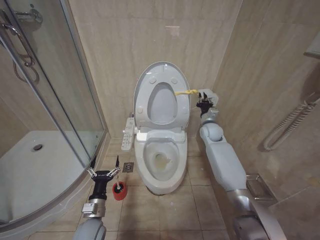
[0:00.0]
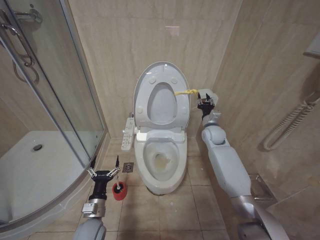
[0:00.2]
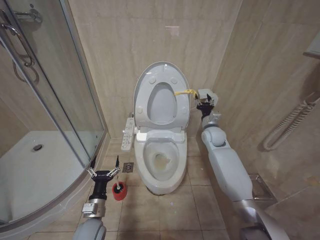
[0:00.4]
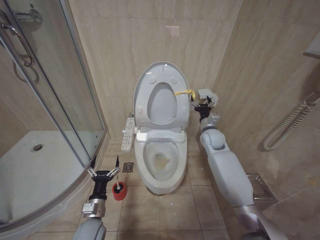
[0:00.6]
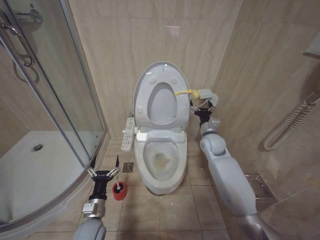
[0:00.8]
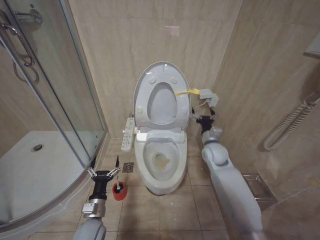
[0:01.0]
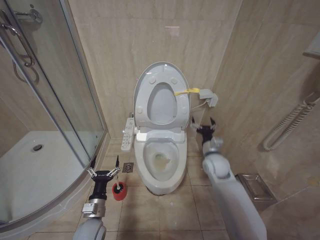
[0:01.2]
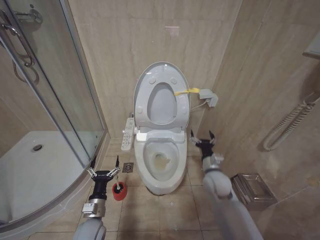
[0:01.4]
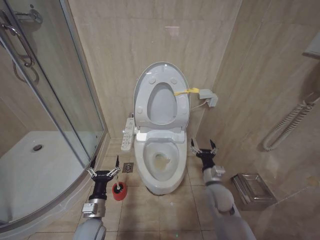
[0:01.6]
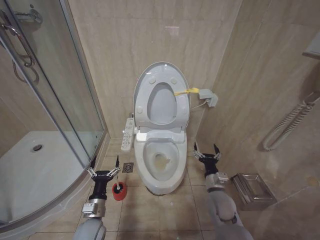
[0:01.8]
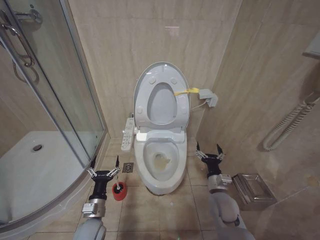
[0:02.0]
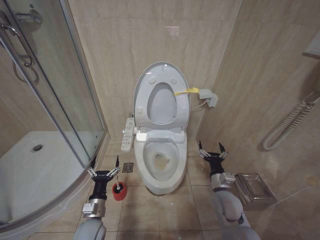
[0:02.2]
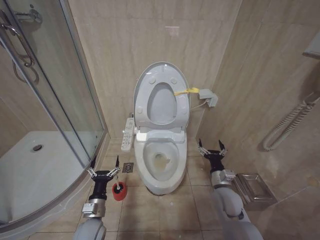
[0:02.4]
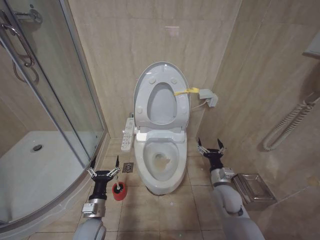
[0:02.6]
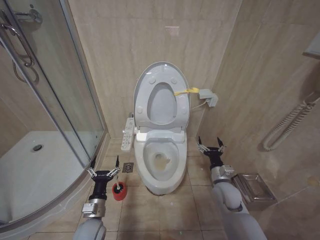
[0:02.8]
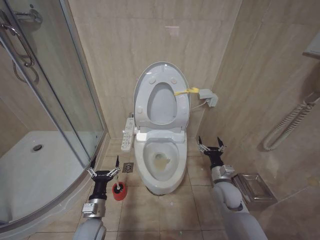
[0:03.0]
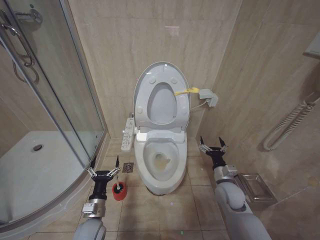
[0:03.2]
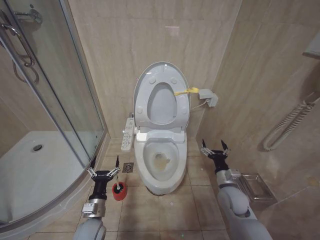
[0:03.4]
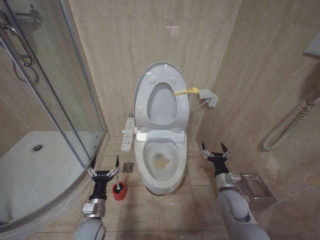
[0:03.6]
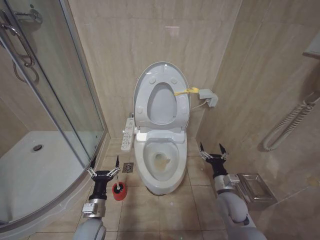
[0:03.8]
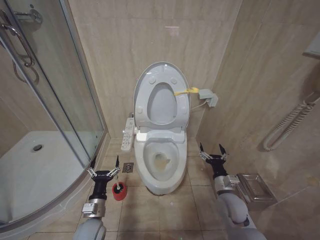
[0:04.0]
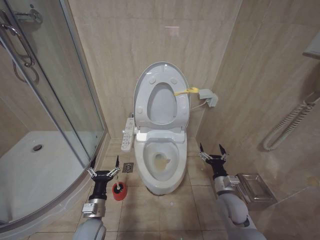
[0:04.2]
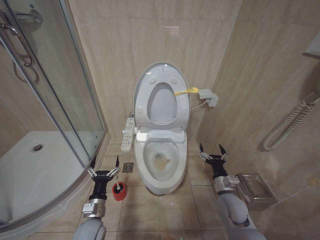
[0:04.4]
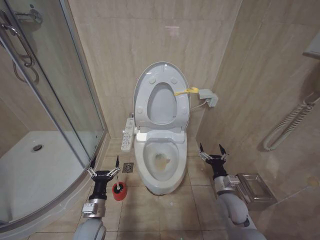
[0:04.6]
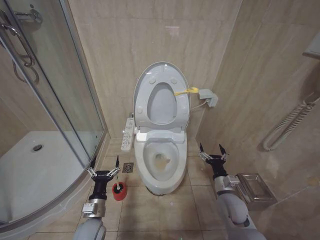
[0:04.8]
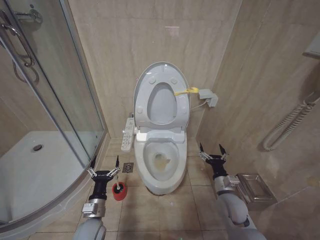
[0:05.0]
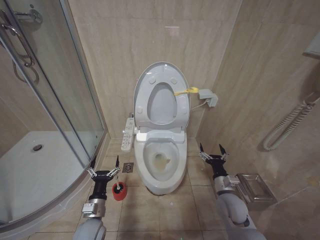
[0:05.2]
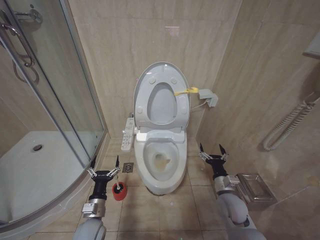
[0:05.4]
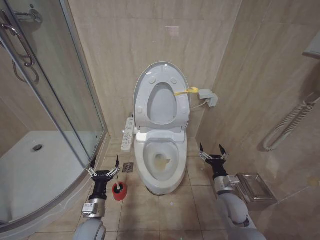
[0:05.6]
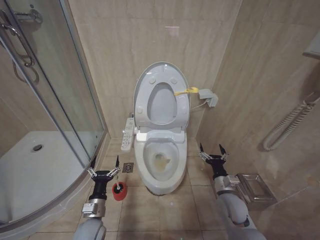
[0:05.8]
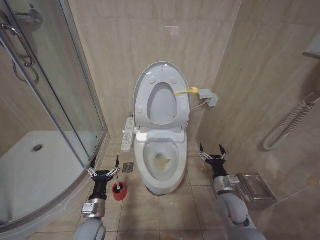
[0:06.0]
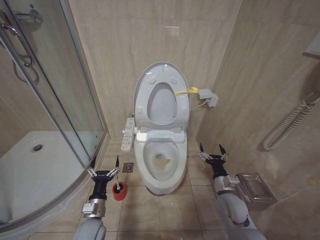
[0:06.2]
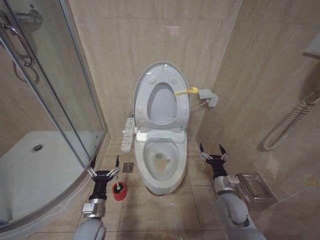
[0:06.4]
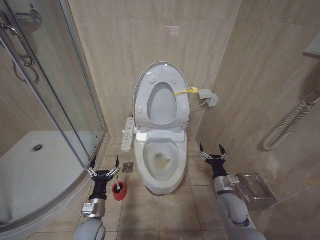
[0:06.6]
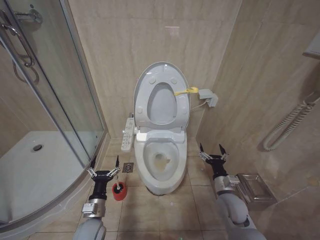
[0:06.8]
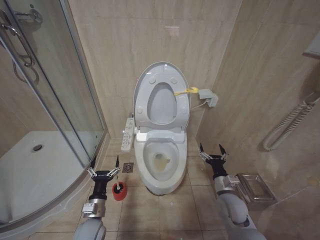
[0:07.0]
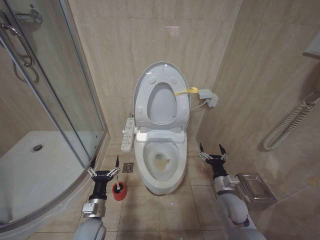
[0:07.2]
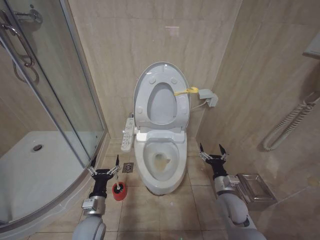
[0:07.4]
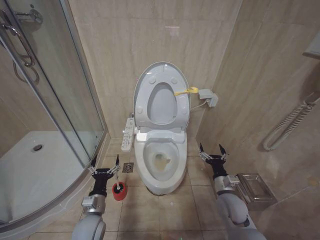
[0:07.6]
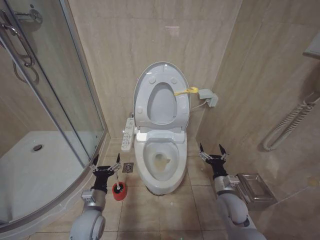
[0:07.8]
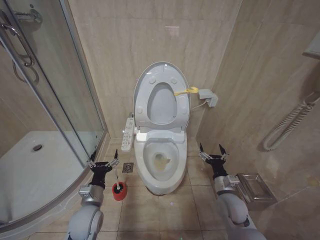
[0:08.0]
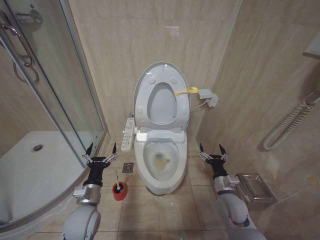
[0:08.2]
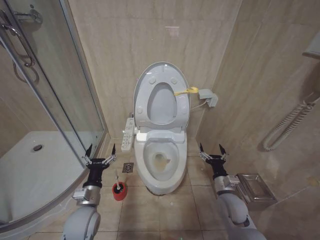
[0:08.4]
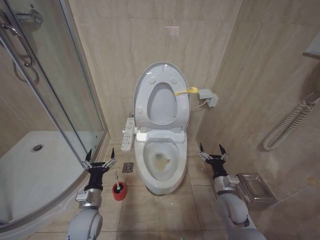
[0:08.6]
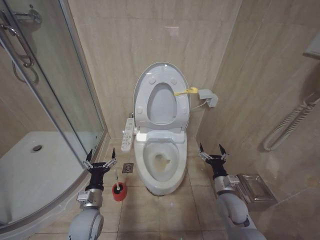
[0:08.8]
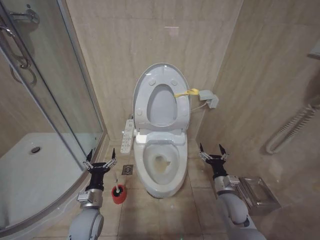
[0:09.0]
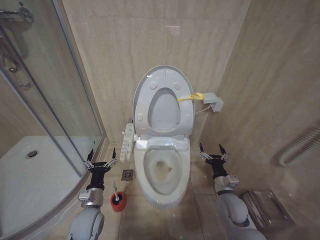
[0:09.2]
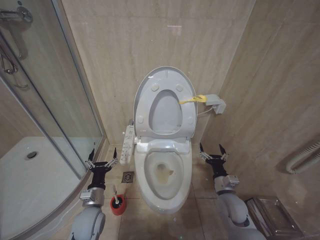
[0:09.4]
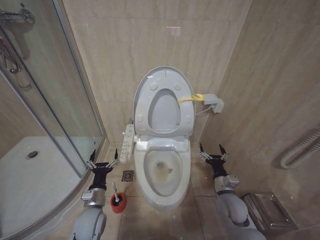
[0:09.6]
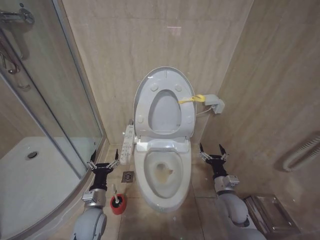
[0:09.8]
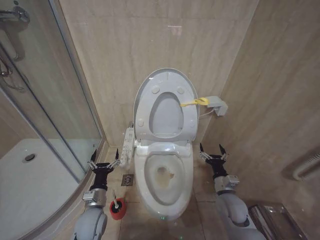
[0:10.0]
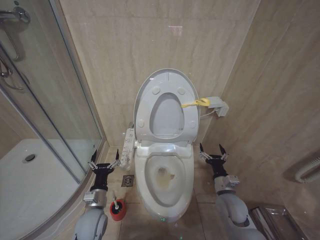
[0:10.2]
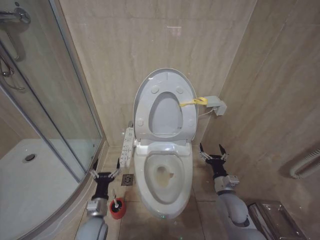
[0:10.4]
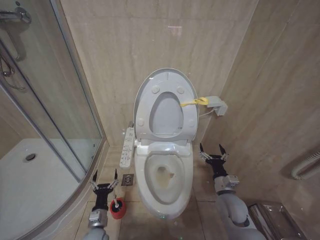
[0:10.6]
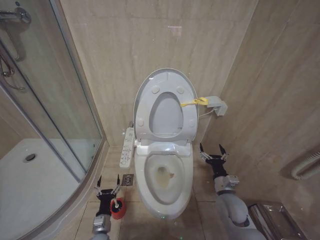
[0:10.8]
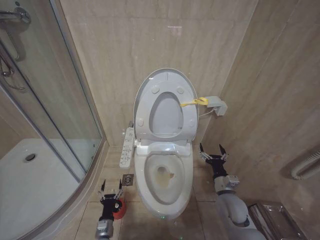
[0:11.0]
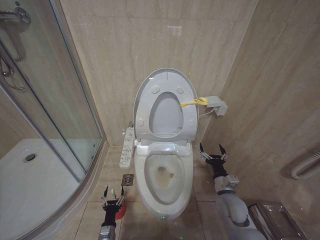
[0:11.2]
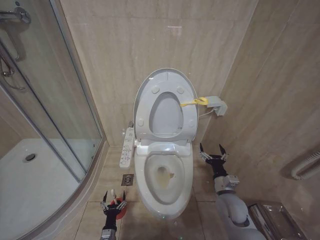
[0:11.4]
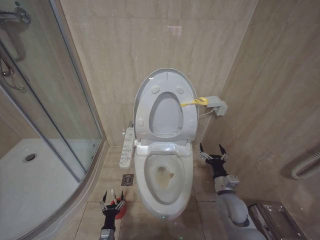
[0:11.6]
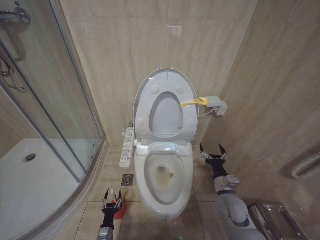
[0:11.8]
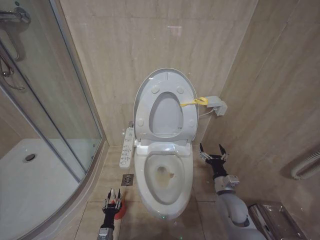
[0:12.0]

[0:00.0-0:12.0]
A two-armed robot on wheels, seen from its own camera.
Task of the whole recording: Open the toilet lid, clean the toilet bowl with a toilet brush, close the toilet lid, and flush.
0:00.0 to 0:01.6: The right gripper is displaced backward and downward by some 25 cm, and opens its fingers.
0:01.6 to 0:03.0: The grippers make only small movements.
0:03.0 to 0:04.4: The grippers stay close to where they were, moving slightly.
0:04.4 to 0:06.0: Both grippers stay about where they are.
0:06.0 to 0:07.6: The grippers stay close to where they were, moving slightly.
0:09.0 to 0:10.4: The grippers move only a little.
0:10.4 to 0:12.0: The left gripper moves downward, roughly 20 cm, and closes.

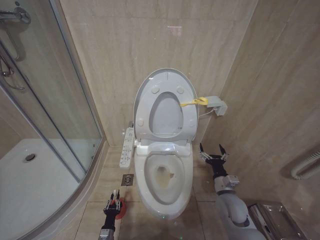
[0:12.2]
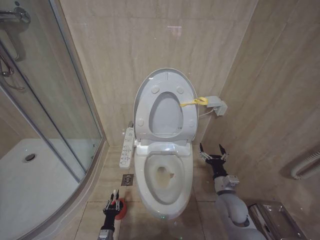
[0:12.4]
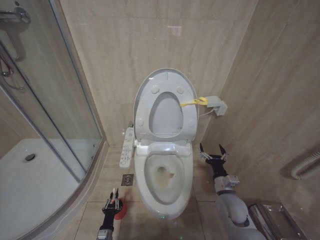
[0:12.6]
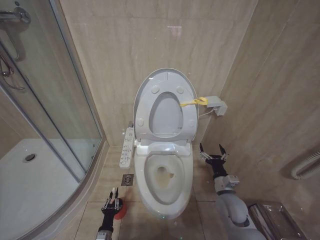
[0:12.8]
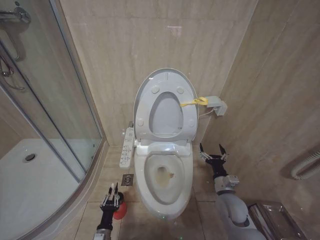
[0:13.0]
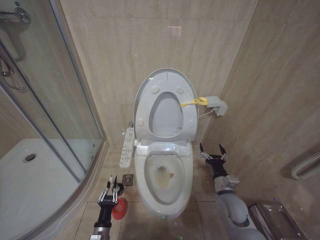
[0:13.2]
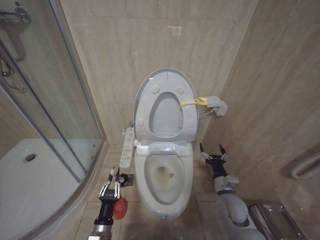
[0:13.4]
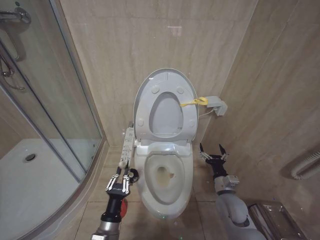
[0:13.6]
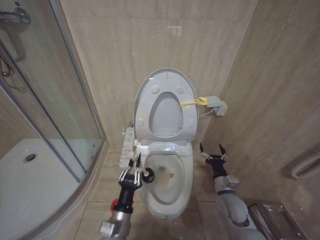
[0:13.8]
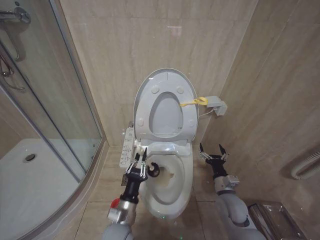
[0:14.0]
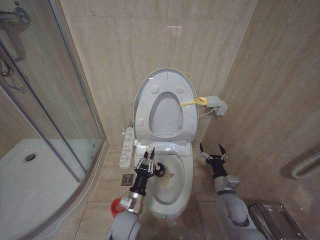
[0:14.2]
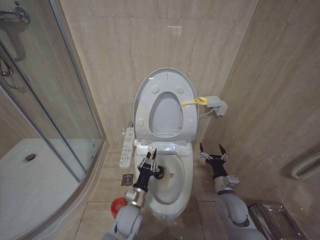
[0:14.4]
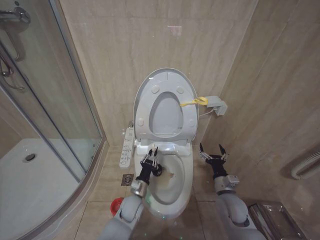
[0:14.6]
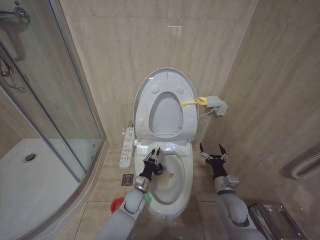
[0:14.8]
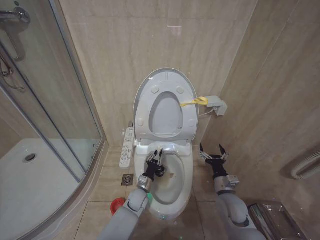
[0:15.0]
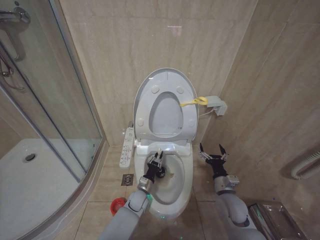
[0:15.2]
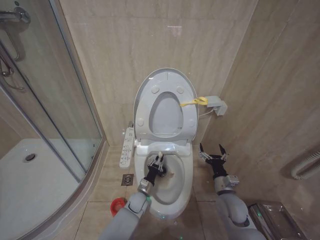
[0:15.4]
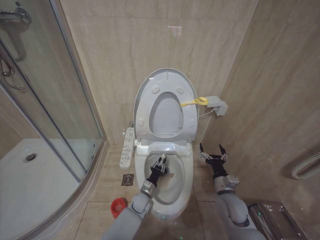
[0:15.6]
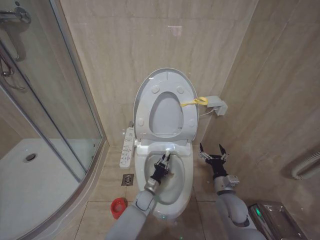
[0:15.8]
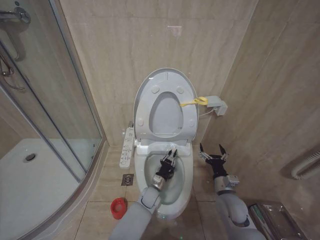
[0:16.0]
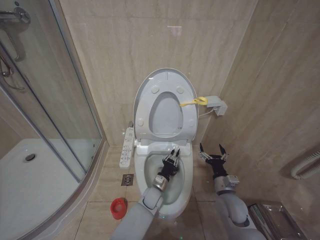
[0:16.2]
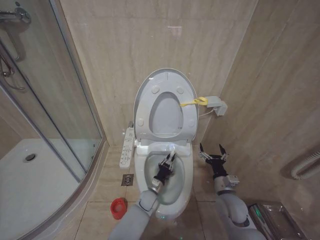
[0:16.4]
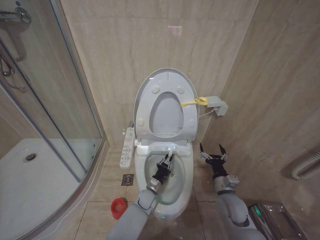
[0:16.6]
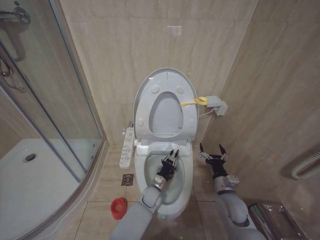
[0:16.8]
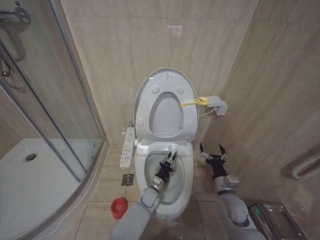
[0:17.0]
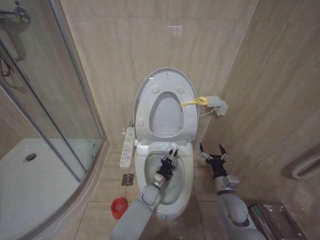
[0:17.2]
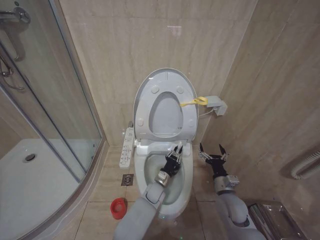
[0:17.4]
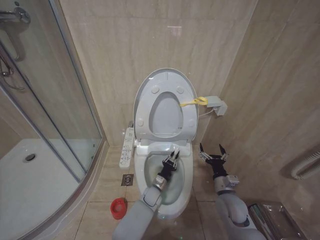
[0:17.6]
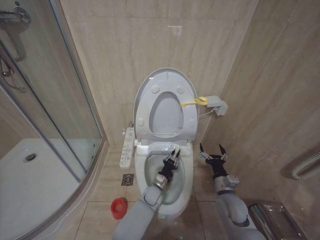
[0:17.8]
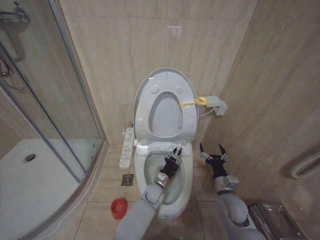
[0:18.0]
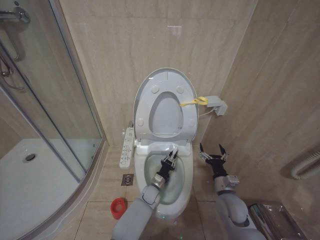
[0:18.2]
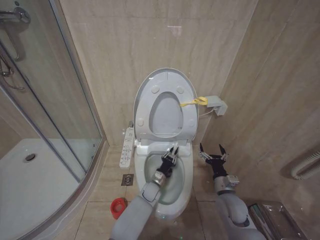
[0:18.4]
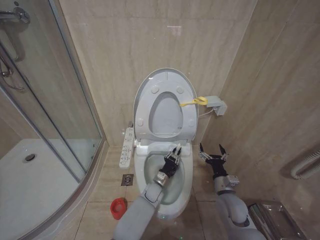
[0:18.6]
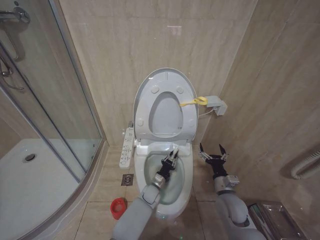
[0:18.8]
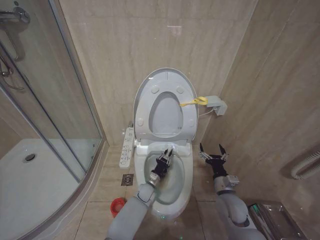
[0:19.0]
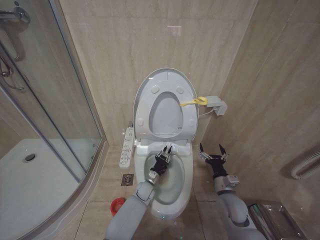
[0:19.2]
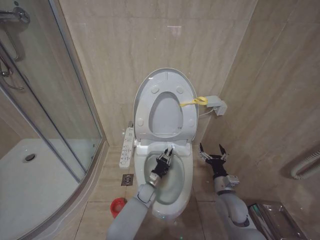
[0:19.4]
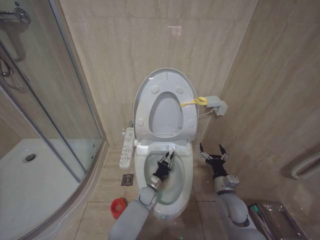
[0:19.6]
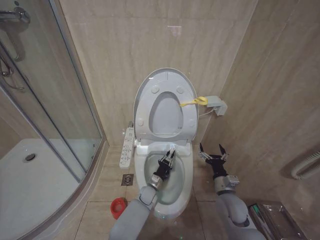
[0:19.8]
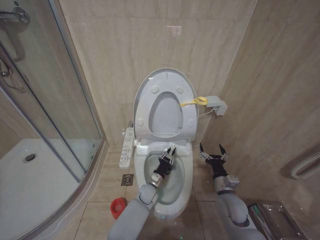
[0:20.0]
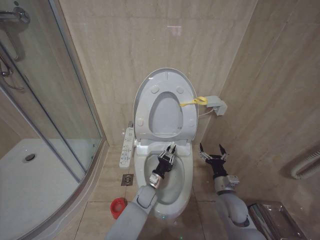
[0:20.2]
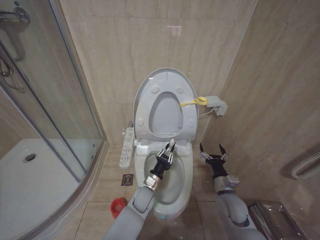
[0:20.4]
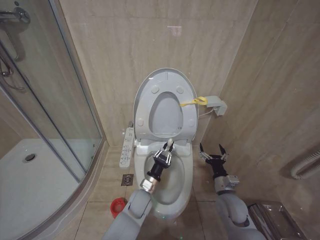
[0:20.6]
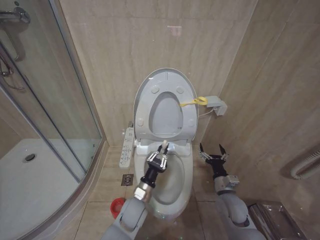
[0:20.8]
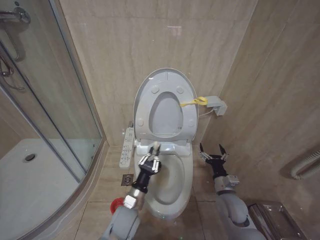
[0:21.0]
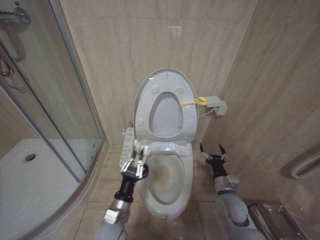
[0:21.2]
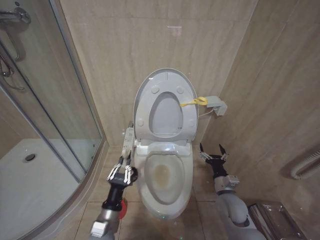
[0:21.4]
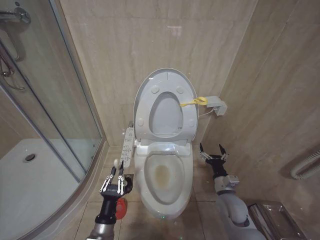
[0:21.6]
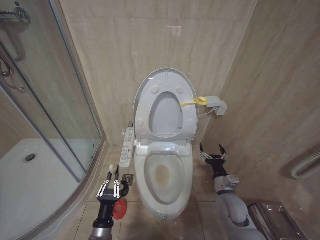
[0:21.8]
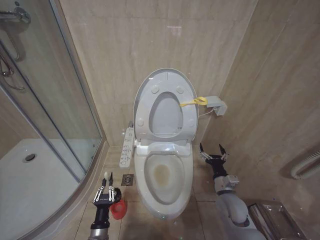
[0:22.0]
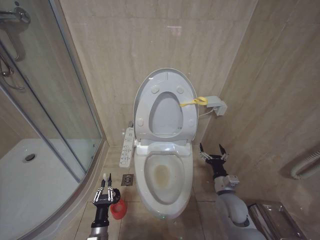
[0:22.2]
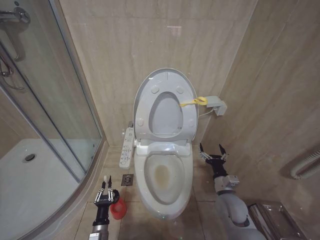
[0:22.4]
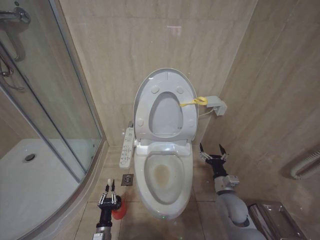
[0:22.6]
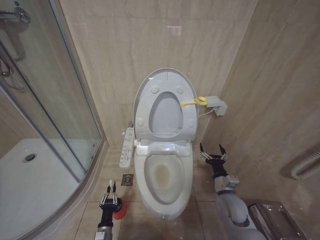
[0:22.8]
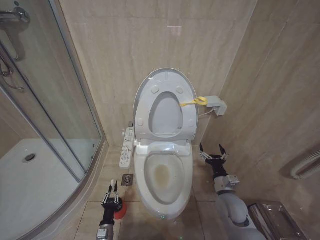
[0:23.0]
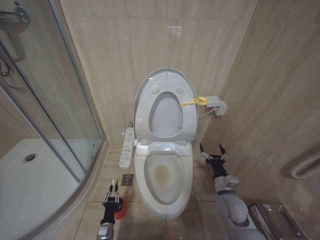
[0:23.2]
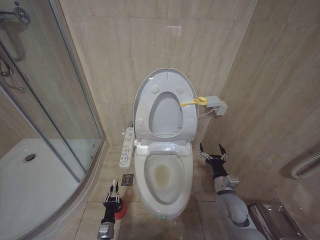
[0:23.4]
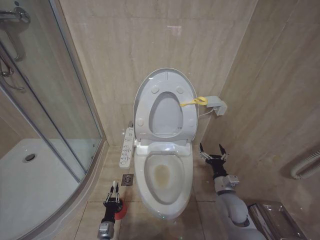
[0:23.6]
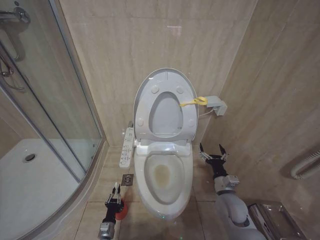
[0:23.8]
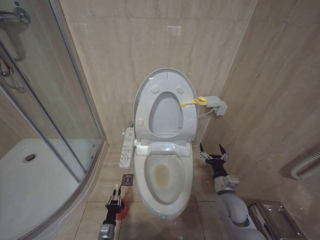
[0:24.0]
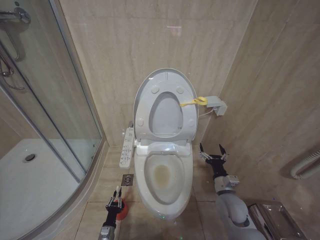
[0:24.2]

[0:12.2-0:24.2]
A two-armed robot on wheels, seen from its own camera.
Task of the whole recording: Open the toilet lid, clean the toilet bowl with a toilet brush, close the toilet lid, and flush.
0:12.2 to 0:13.8: The left gripper moves upward, some 25 cm.
0:13.8 to 0:15.2: The left gripper goes about 25 cm forward and downward.
0:19.8 to 0:21.2: The left gripper is displaced backward, upward and to the left by roughly 25 cm.
0:21.2 to 0:22.6: The left gripper goes about 25 cm downward and to the left.
0:22.6 to 0:24.2: The left gripper is displaced downward by approximately 10 cm.
